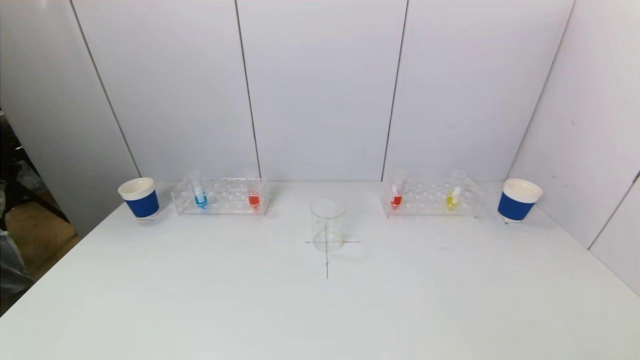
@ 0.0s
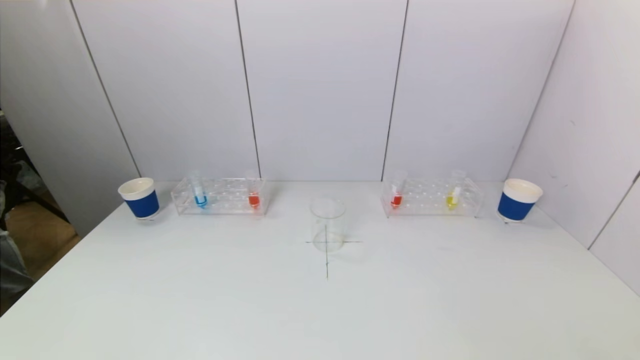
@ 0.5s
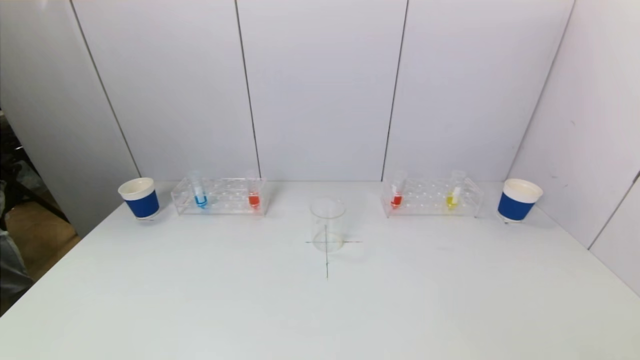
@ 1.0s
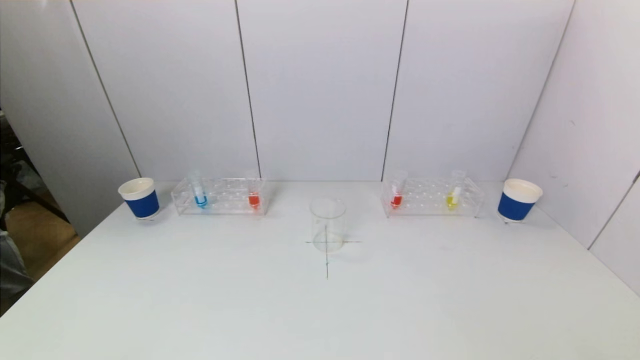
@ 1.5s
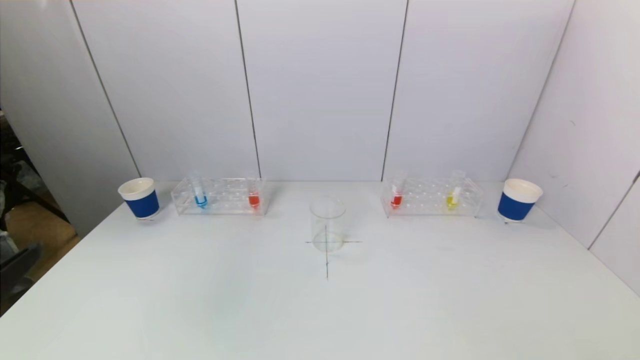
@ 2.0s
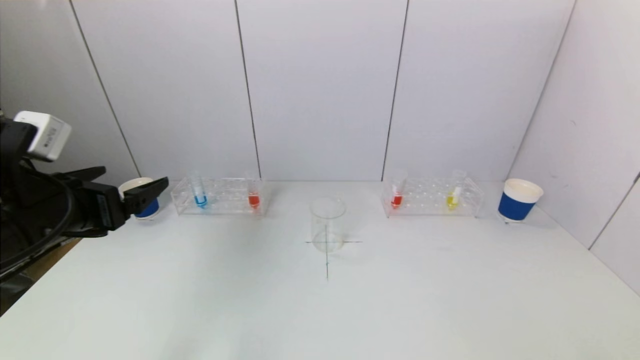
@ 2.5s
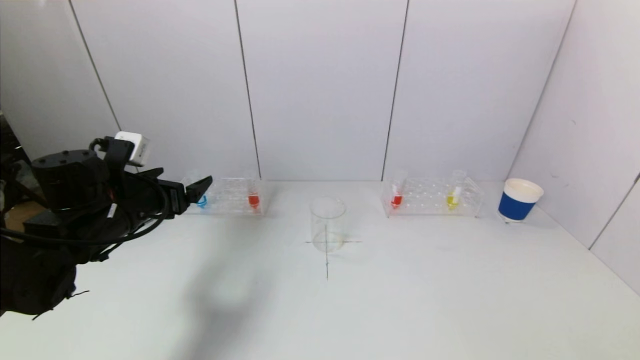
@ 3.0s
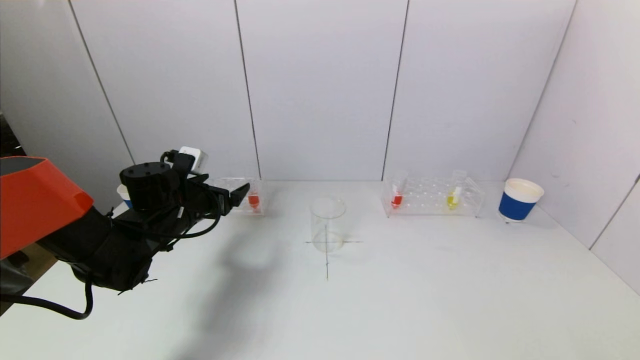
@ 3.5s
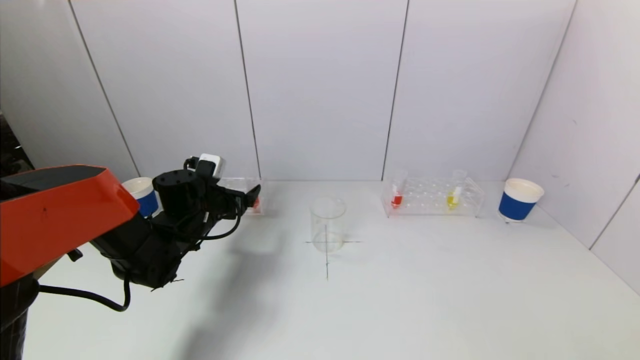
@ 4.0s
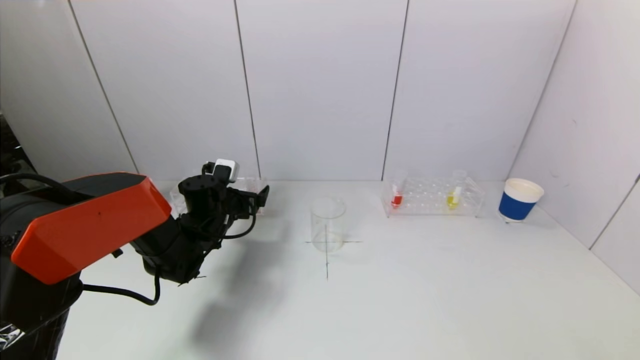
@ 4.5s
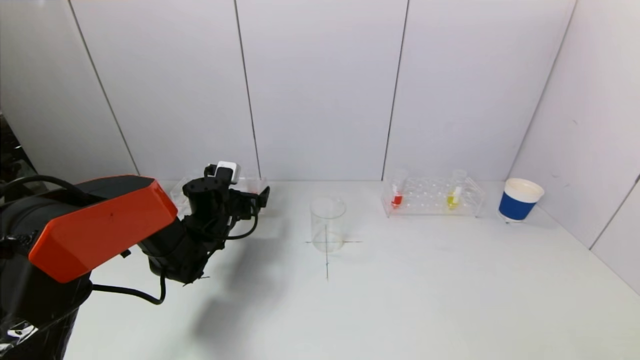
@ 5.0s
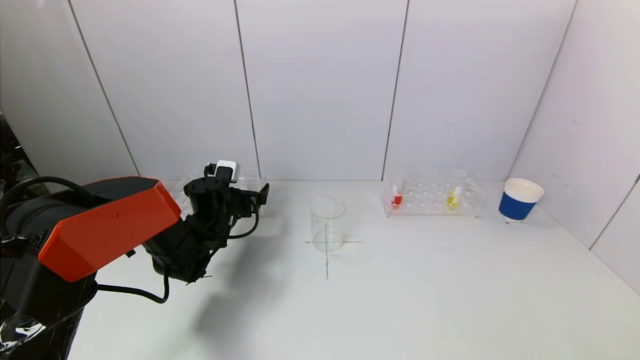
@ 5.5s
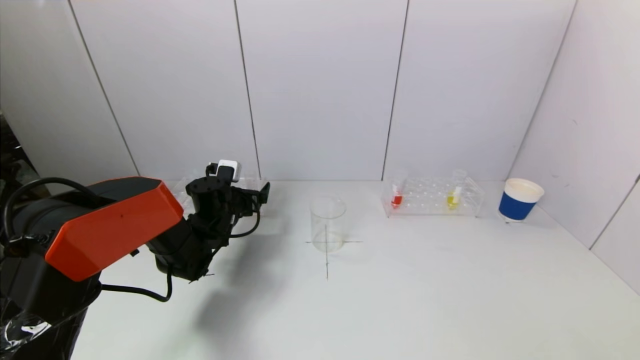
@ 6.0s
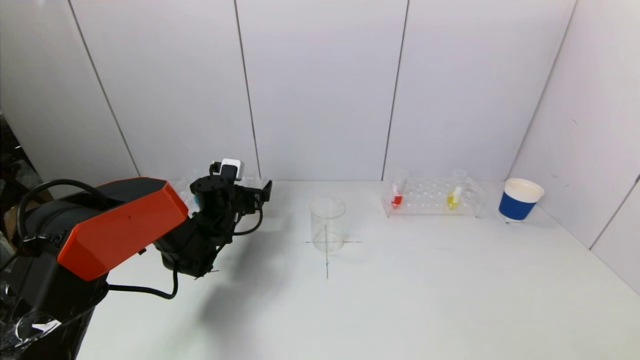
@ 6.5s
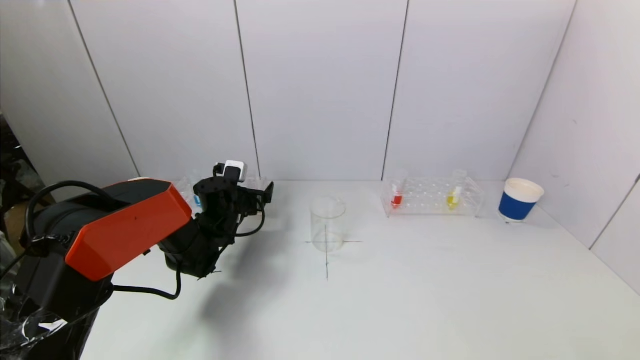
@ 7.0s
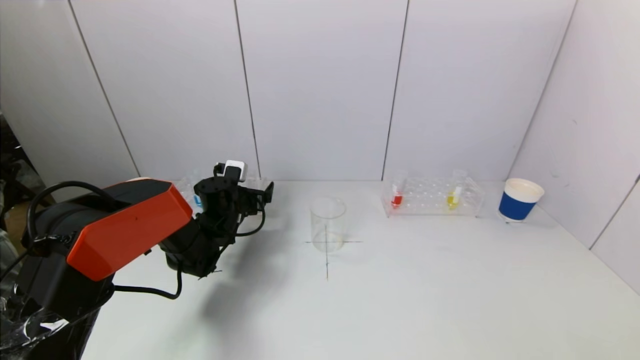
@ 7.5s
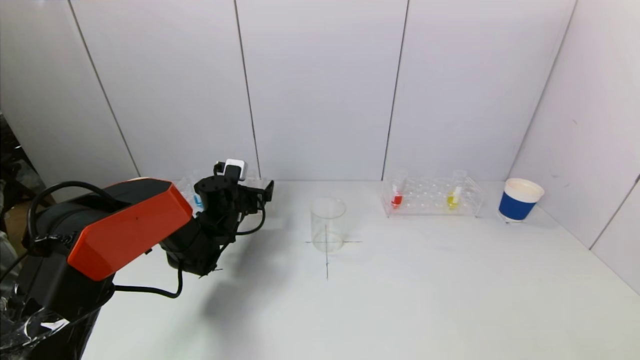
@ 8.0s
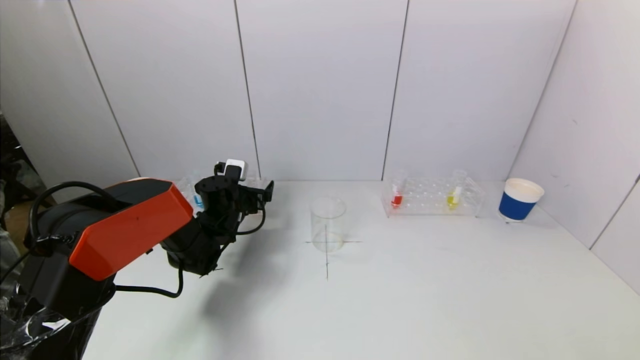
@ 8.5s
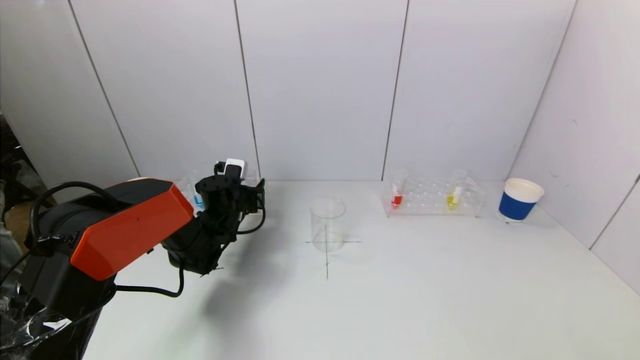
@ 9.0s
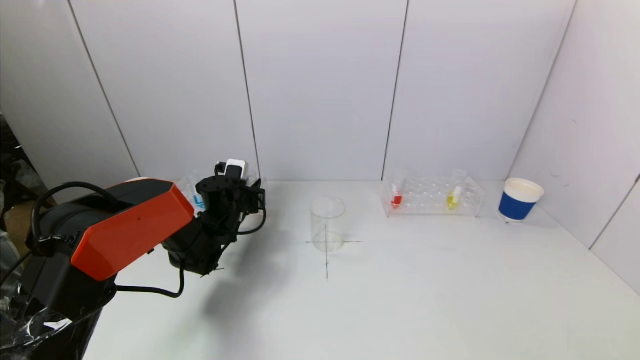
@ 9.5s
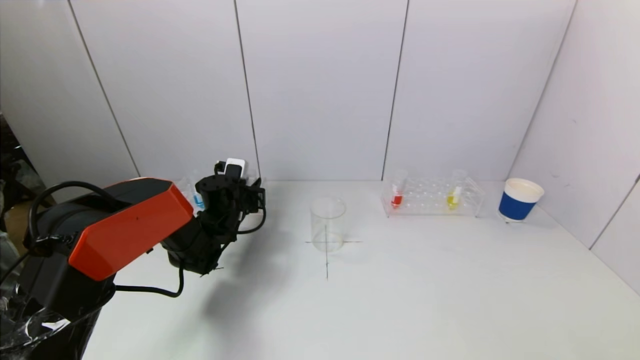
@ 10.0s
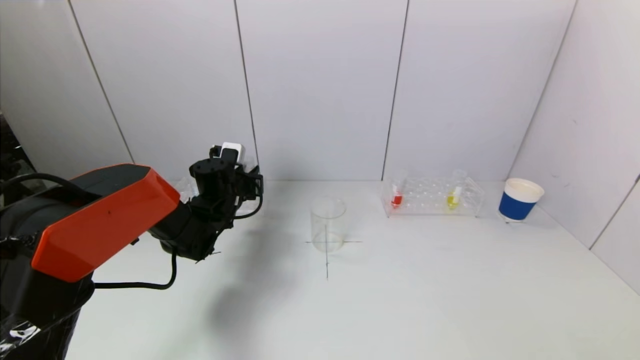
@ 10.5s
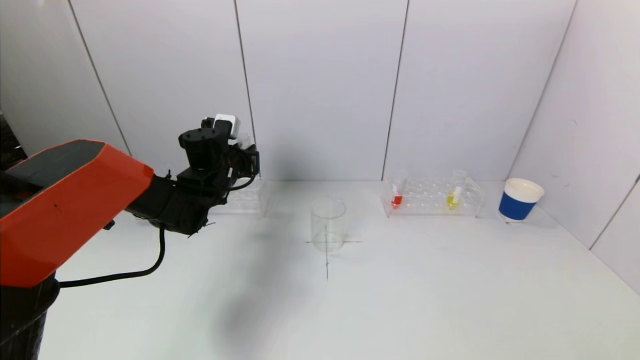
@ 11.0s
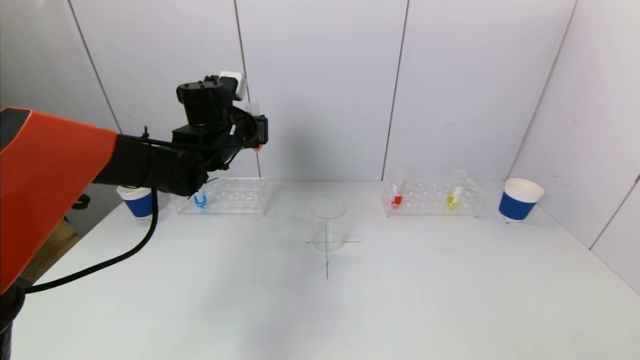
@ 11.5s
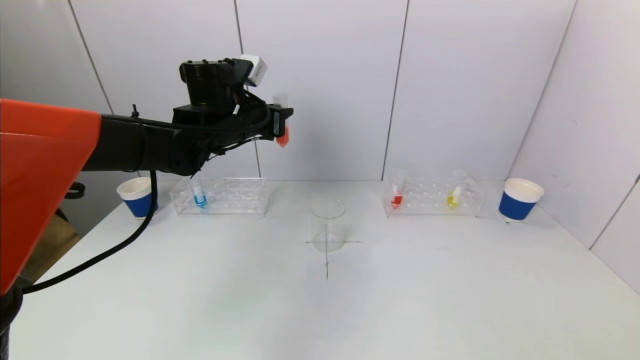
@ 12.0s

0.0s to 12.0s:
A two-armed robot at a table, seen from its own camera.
Task of the whole recording: pick up a test tube with pigment on left test tube rack and a test tube with pigment on right test tube rack by grippers and pour them into the beaker.
Step, 0.0s to 9.5s: Grasp the red reagent with the left gripper.
2.0s to 4.0s: The left gripper goes some 35 cm forward and downward.
4.0s to 6.0s: The left gripper moves about 5 cm.
6.0s to 8.0s: The grippers stay close to where they were, moving slightly.
8.0s to 10.0s: The left gripper closes its fingers.
10.0s to 12.0s: The left gripper travels upward by approximately 20 cm.

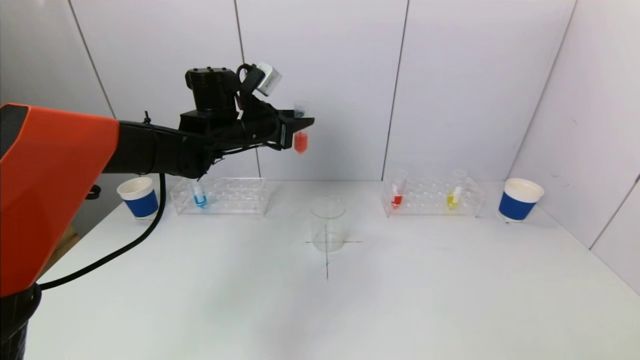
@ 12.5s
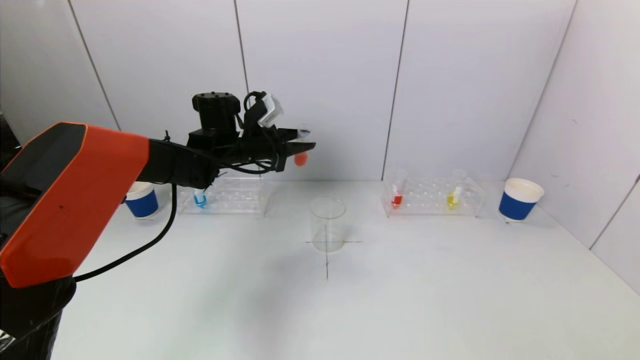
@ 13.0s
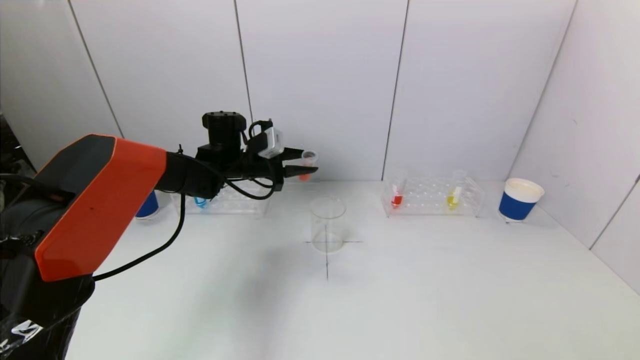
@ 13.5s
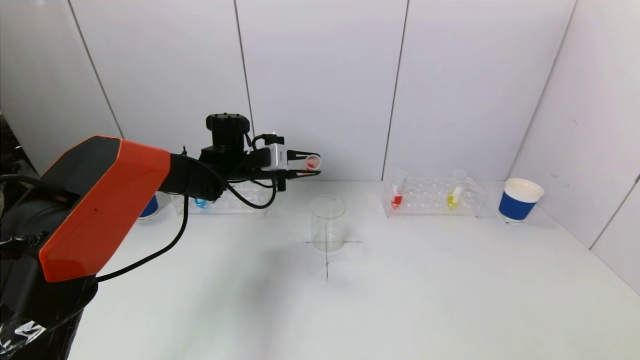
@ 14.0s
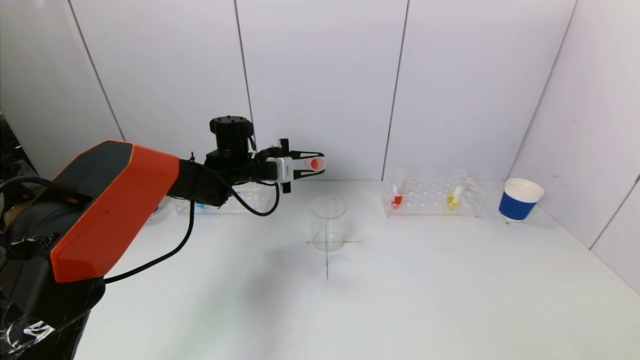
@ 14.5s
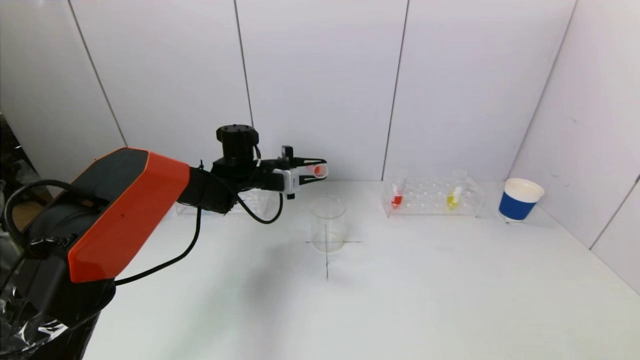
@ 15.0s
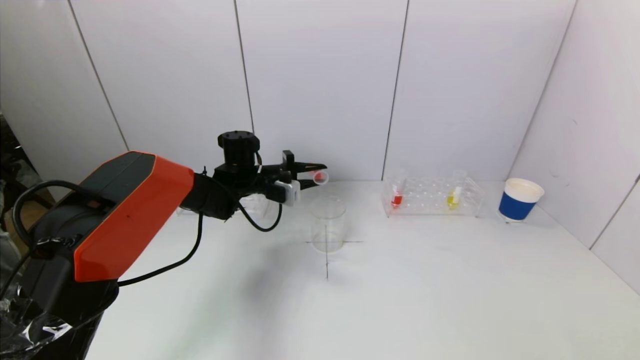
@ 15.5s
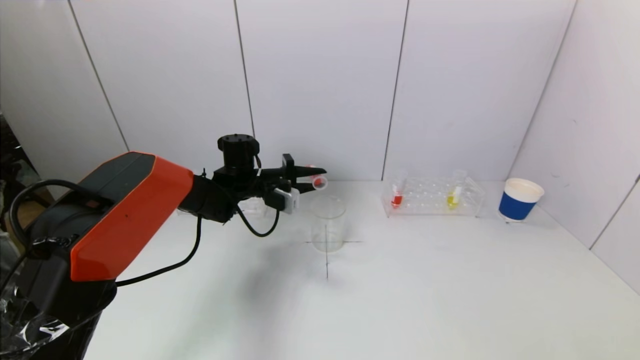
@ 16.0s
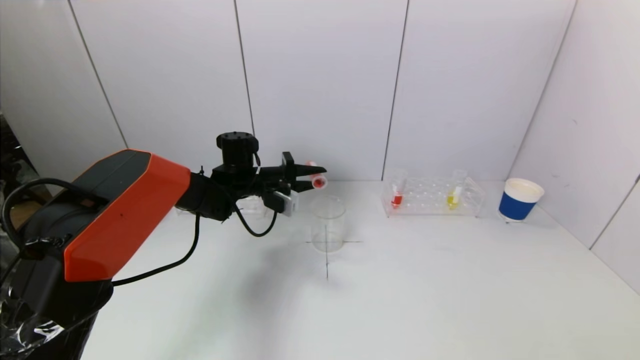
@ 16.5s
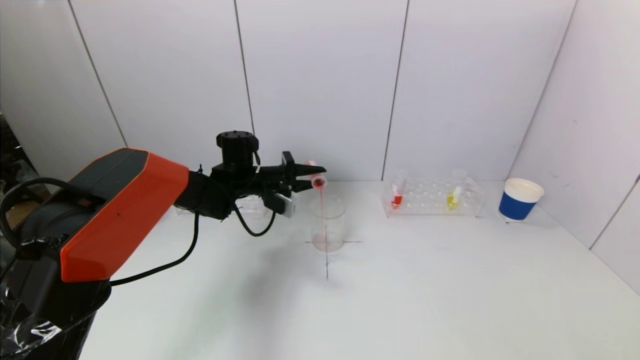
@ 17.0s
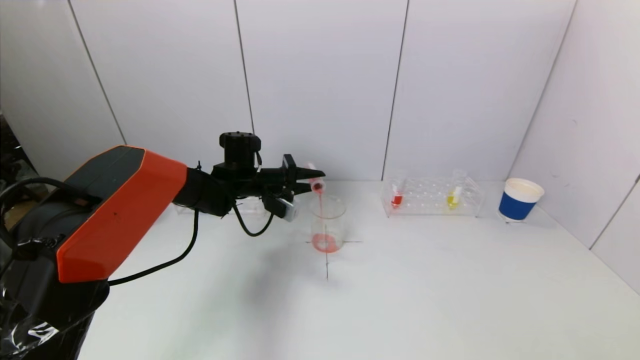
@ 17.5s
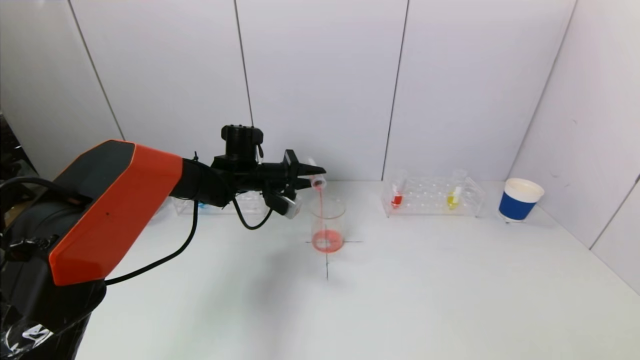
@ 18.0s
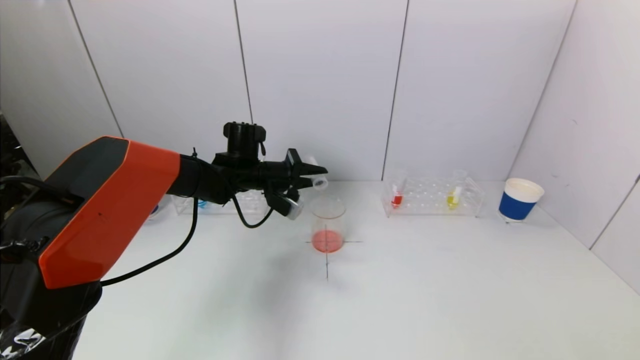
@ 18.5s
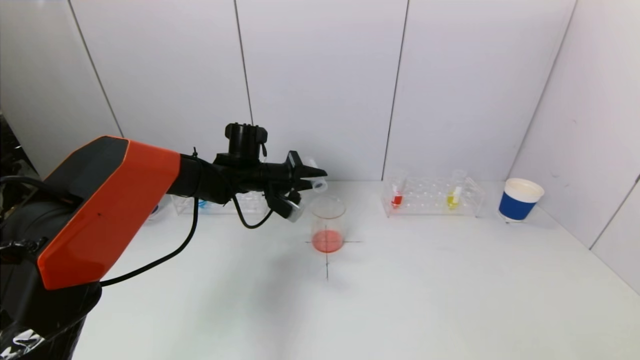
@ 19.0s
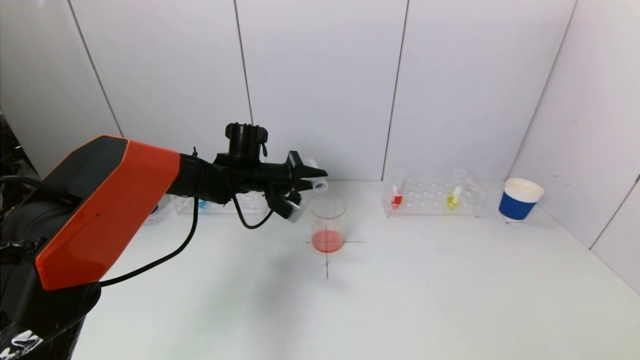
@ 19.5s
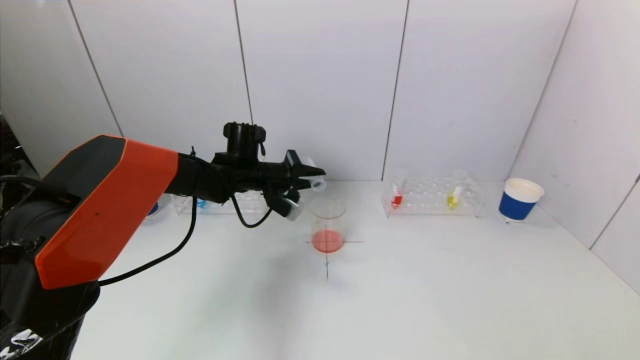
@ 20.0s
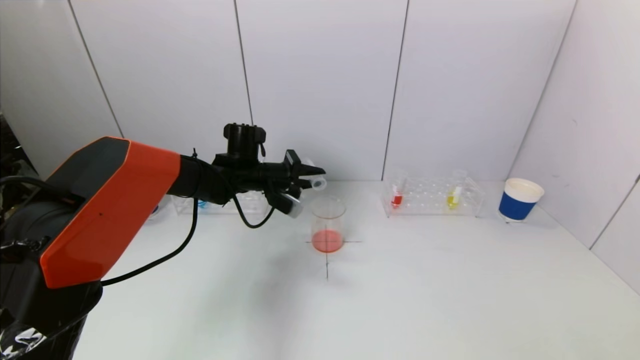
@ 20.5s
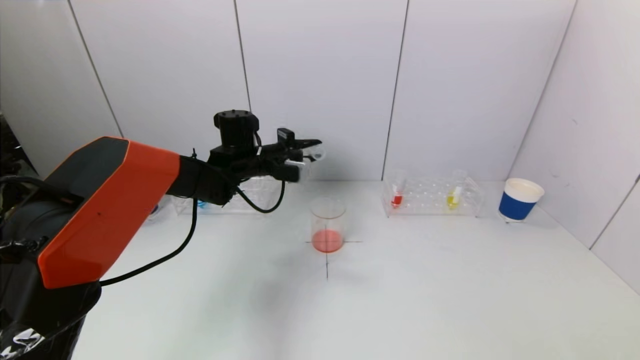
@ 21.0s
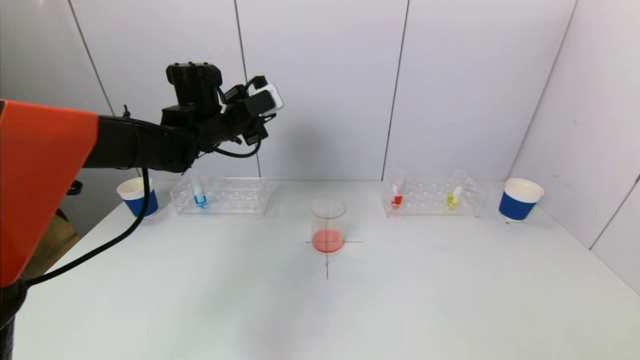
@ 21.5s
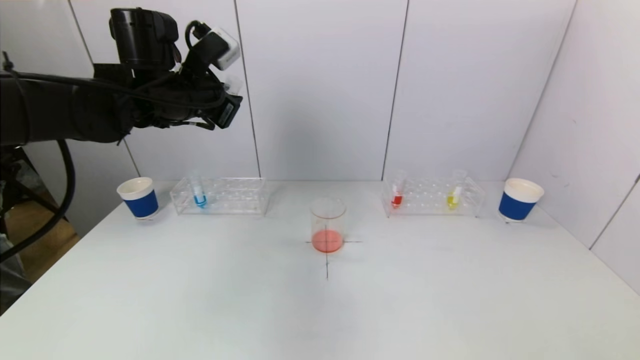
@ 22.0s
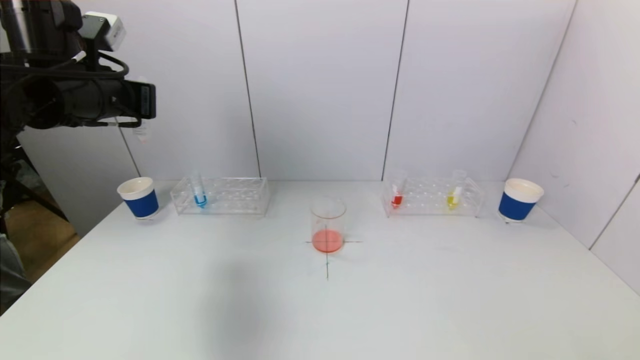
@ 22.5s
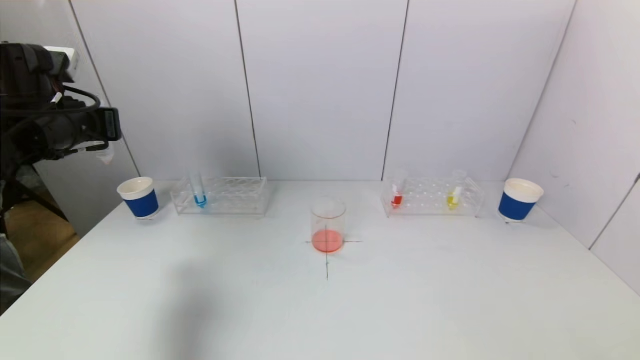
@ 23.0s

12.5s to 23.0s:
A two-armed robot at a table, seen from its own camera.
Task of the whole recording: pick up a test tube with pigment on left test tube rack and a test tube with pigment on right test tube rack by grippers and pour them into the beaker.
Step, 12.5s to 19.0s: Pour the red reagent into the graduated cylinder with the left gripper.
12.5s to 14.5s: The left gripper shifts some 10 cm downward.
16.5s to 19.0s: The grippers move only a little.
21.0s to 23.0s: The left gripper travels to the left, backward and upward by about 25 cm.
